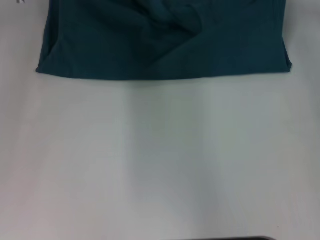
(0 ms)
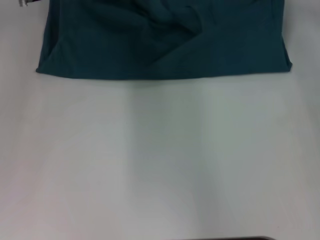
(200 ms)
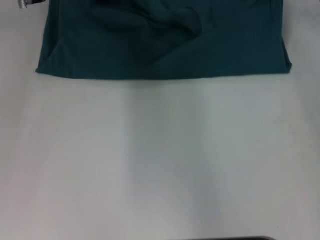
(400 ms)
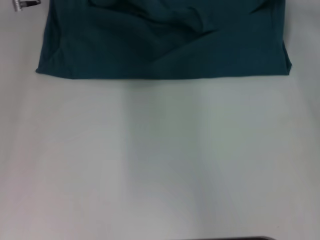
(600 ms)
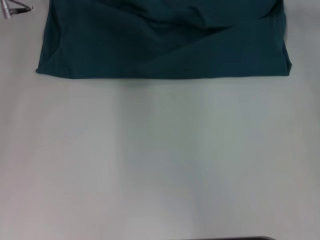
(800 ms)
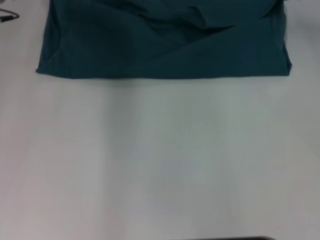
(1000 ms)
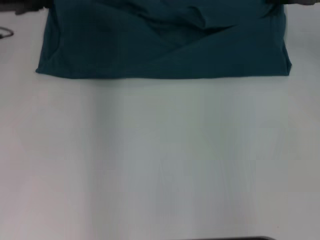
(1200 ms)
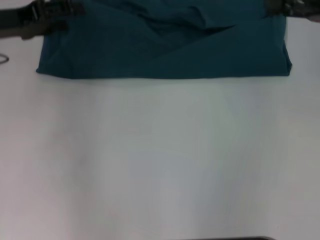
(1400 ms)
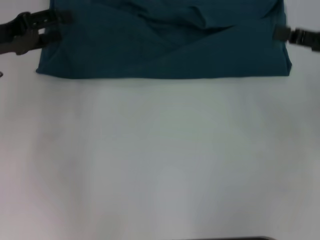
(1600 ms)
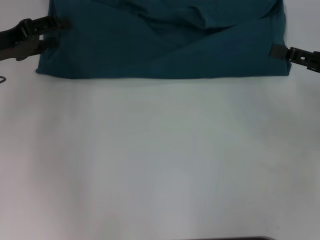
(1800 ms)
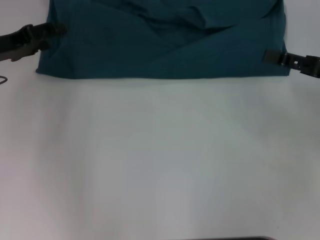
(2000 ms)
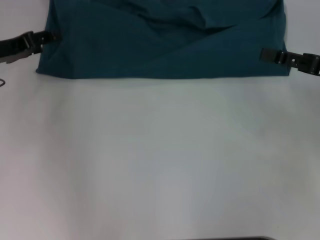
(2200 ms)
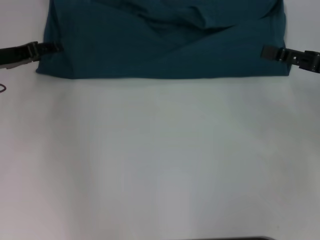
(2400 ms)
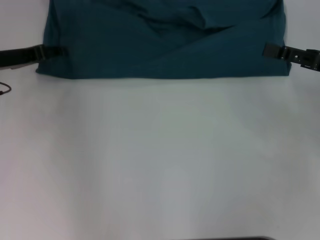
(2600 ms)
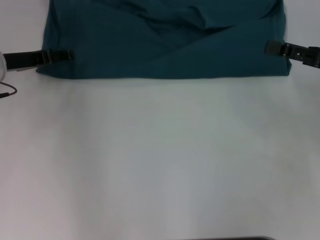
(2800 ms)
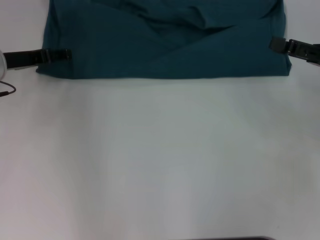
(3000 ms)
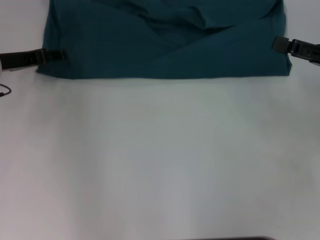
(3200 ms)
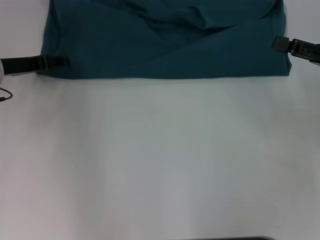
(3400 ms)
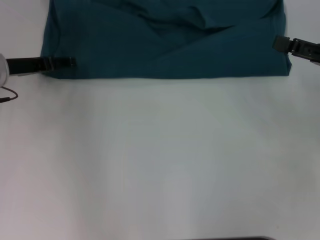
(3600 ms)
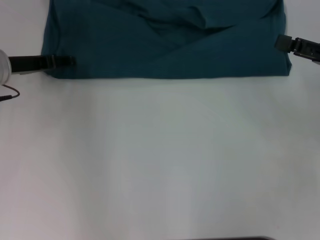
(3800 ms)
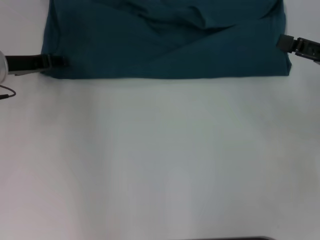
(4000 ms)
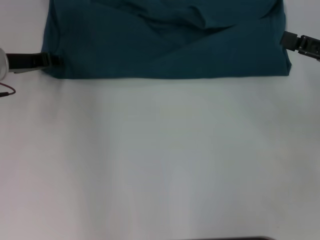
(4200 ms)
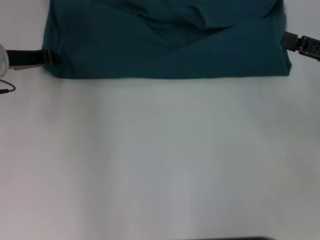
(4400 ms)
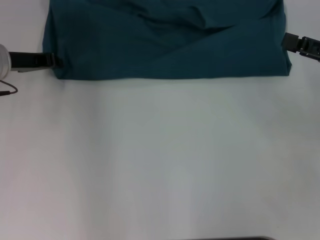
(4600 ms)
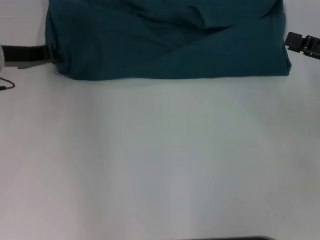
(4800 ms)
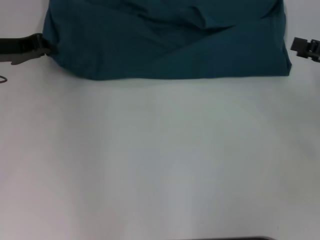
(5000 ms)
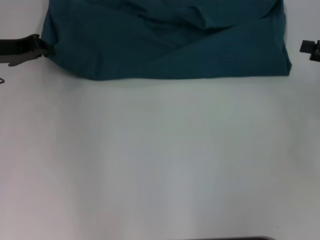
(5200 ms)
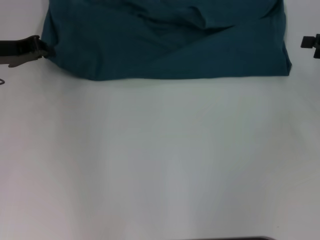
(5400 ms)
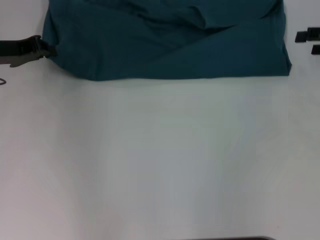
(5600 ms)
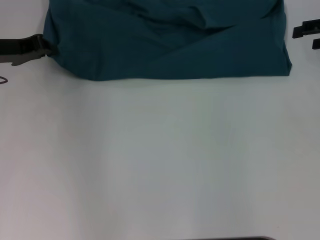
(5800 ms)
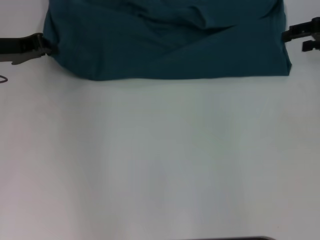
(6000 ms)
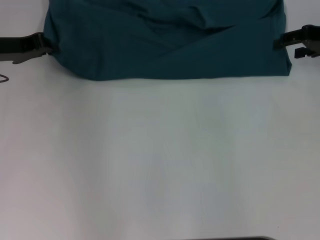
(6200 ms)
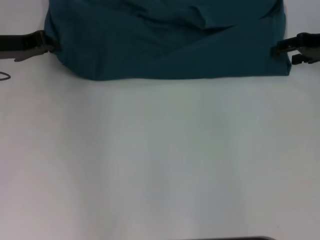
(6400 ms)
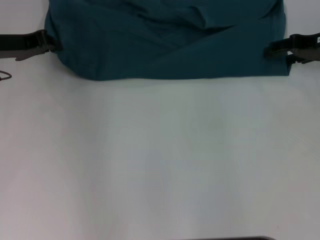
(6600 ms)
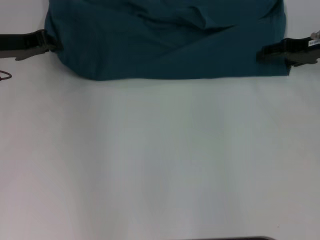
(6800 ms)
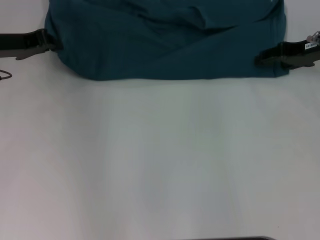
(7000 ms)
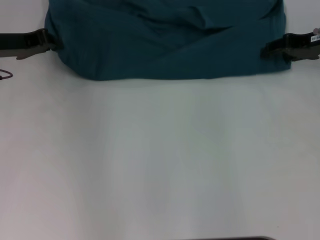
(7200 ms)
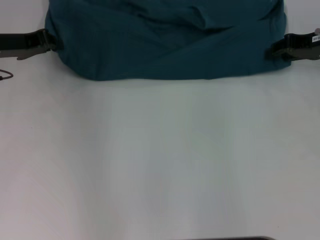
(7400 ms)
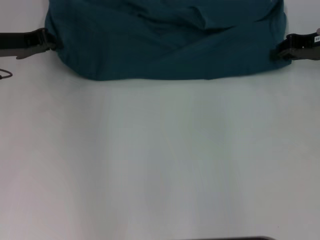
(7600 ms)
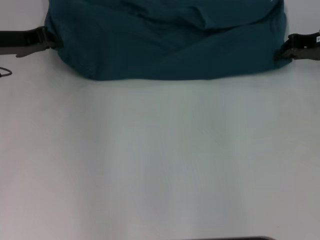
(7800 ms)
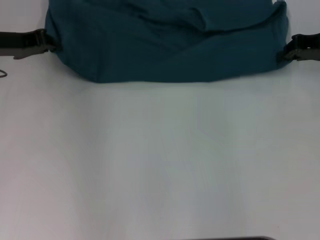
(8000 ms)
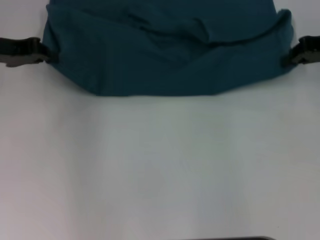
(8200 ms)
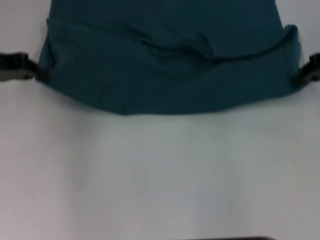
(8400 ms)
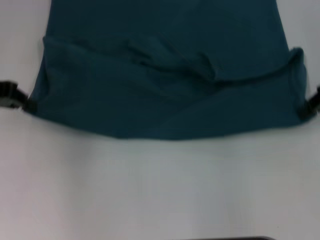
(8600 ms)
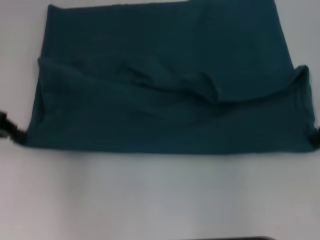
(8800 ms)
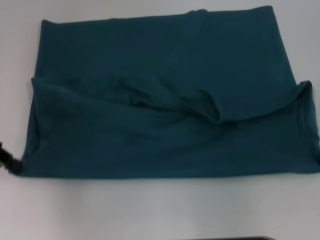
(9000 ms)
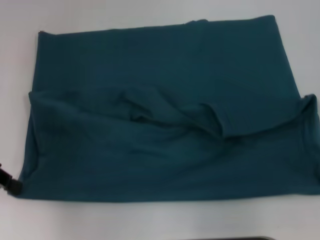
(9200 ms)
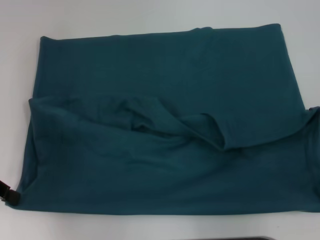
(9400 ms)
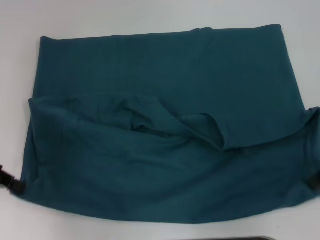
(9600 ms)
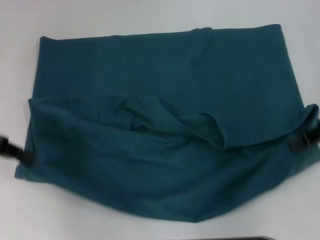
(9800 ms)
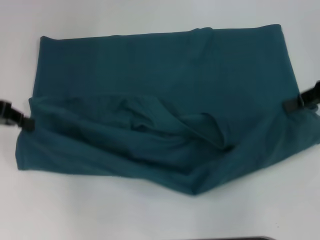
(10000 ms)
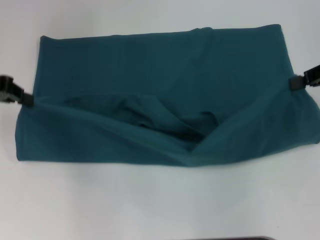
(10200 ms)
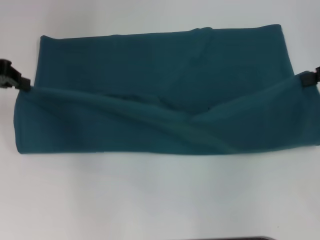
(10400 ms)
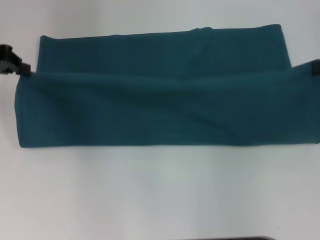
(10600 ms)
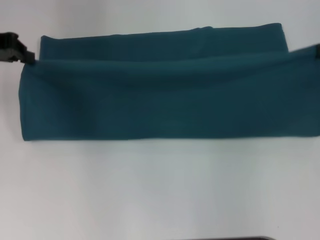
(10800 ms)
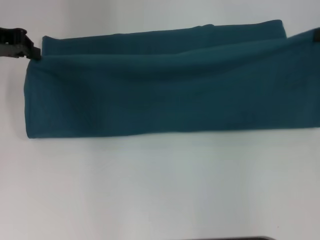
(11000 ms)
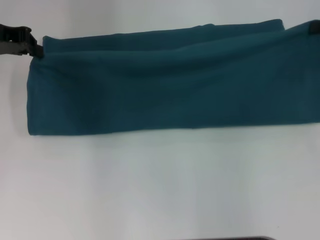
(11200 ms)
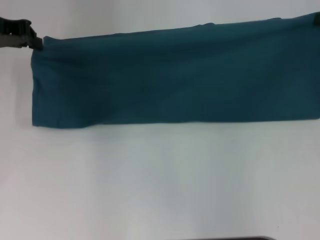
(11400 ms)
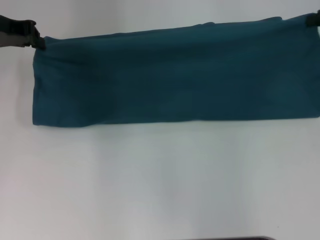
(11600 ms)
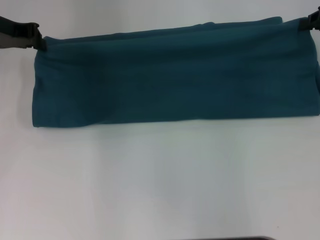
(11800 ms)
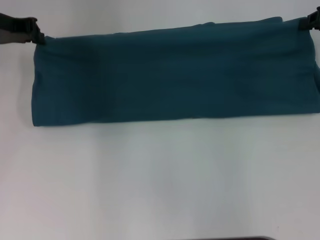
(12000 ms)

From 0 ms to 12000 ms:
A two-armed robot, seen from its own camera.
Step, from 1400 ms to 9400 ms: Pull the clothes with your left hand.
Step, from 1400 ms to 9400 ms: Pull the clothes with your right hand.
From 0 ms to 1600 ms: The right gripper shifts approximately 15 cm backward, and opens, while the left gripper goes some 15 cm backward and to the left, and opens up.
From 1600 ms to 3000 ms: The left gripper travels downward by about 5 cm.
From 4400 ms to 6000 ms: The left gripper closes up. Meanwhile the right gripper moves forward, some 10 cm.
From 6000 ms to 7600 ms: The right gripper closes up.
From 7600 ms to 9000 ms: The left gripper travels backward and to the left by roughly 10 cm. The right gripper moves backward, some 10 cm, and closes up.
From 9000 ms to 10400 ms: The left gripper goes approximately 5 cm forward.
From 10400 ms to 12000 ms: The two grippers go roughly 5 cm forward.

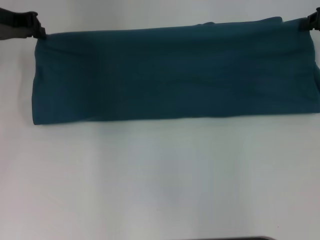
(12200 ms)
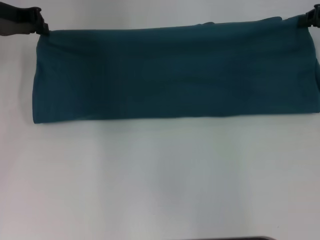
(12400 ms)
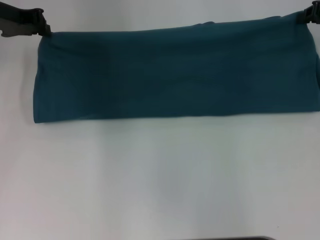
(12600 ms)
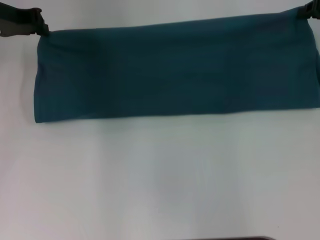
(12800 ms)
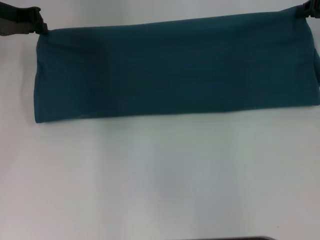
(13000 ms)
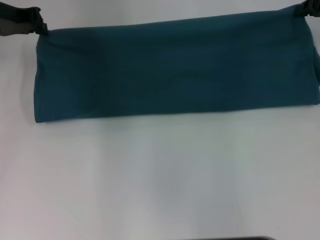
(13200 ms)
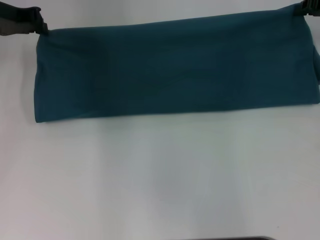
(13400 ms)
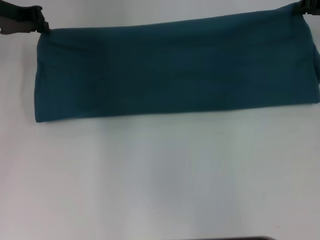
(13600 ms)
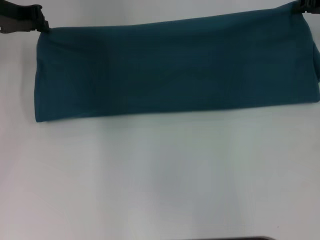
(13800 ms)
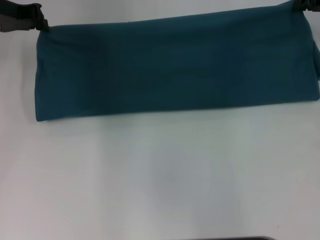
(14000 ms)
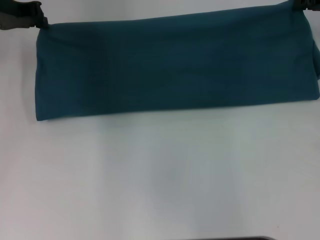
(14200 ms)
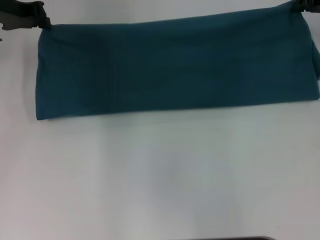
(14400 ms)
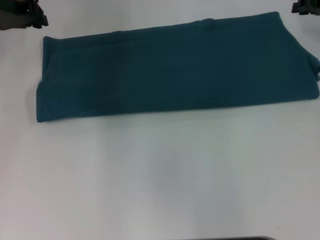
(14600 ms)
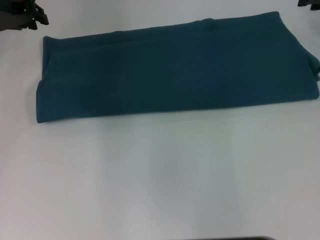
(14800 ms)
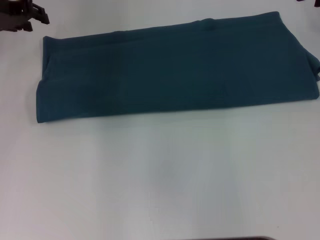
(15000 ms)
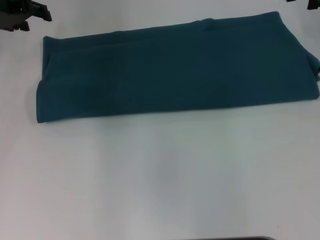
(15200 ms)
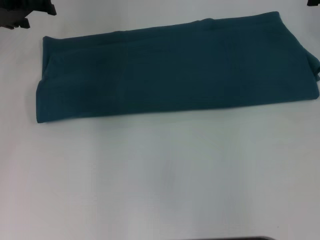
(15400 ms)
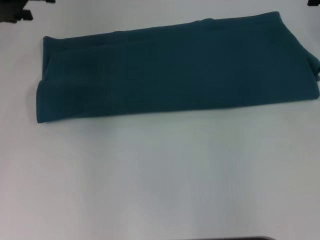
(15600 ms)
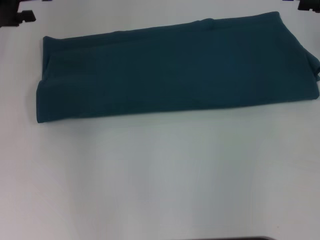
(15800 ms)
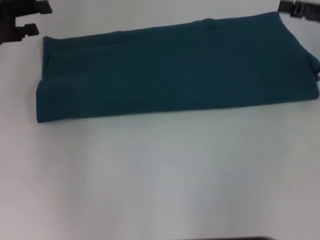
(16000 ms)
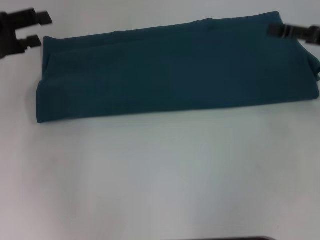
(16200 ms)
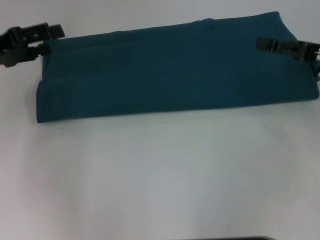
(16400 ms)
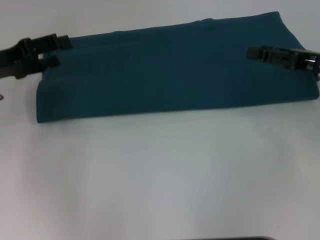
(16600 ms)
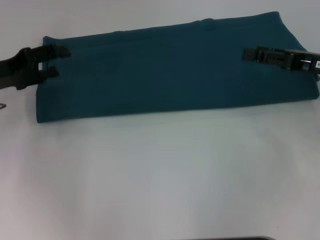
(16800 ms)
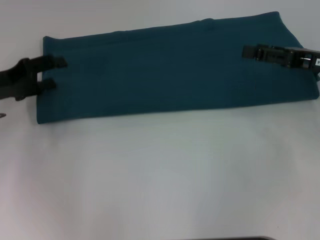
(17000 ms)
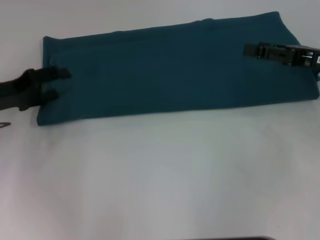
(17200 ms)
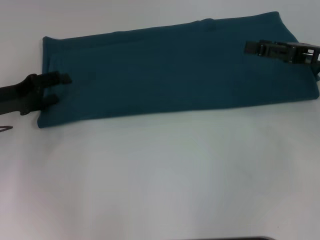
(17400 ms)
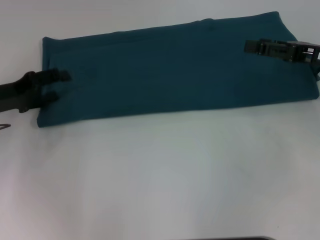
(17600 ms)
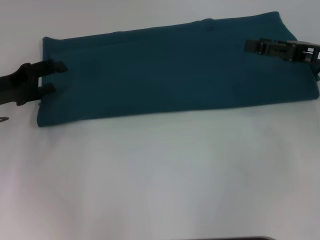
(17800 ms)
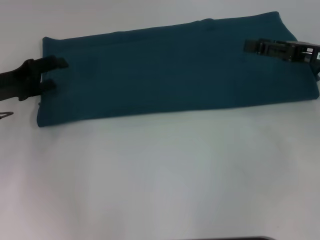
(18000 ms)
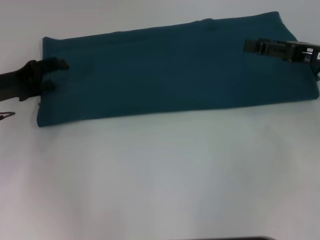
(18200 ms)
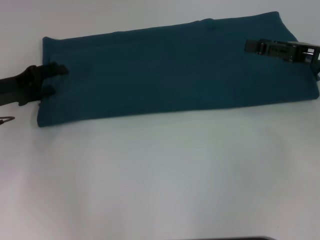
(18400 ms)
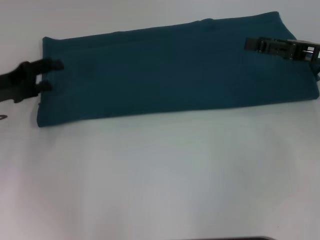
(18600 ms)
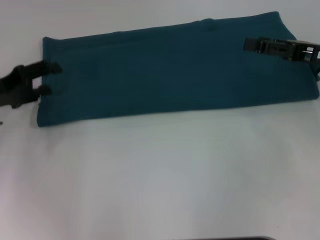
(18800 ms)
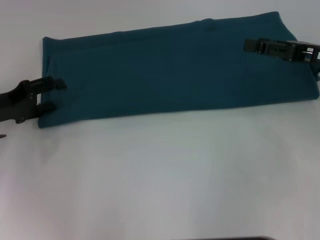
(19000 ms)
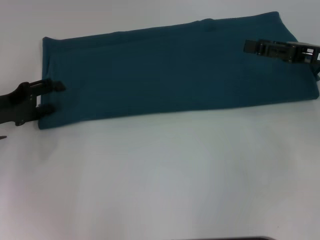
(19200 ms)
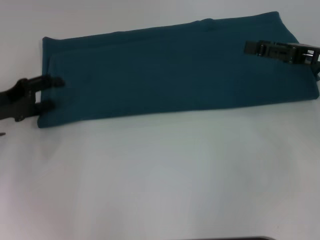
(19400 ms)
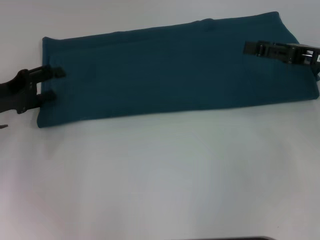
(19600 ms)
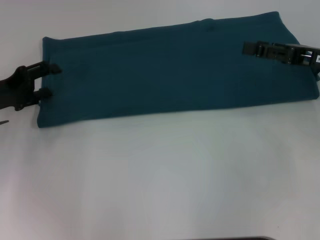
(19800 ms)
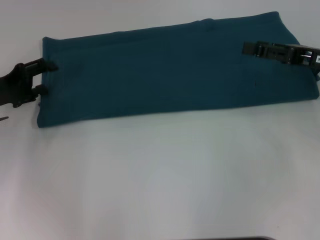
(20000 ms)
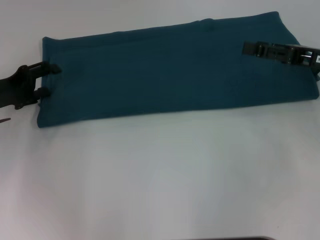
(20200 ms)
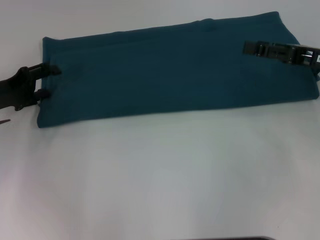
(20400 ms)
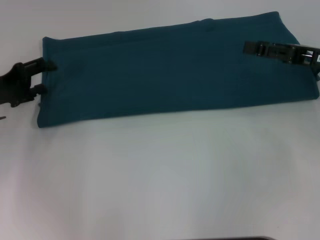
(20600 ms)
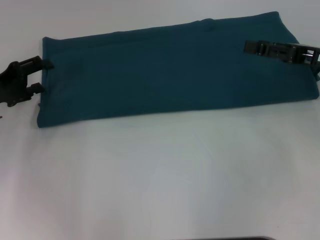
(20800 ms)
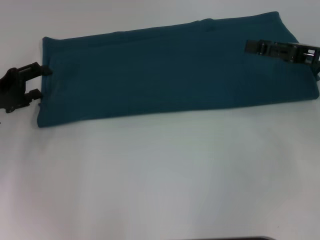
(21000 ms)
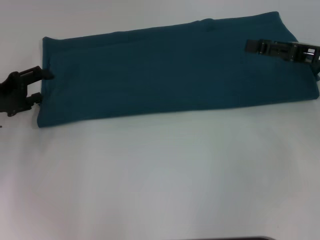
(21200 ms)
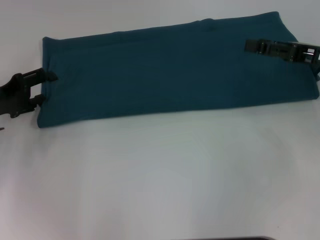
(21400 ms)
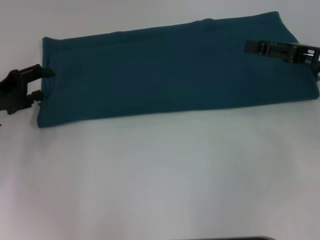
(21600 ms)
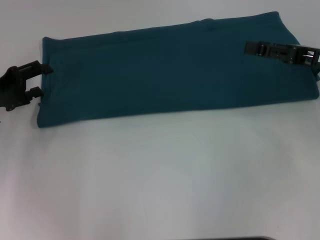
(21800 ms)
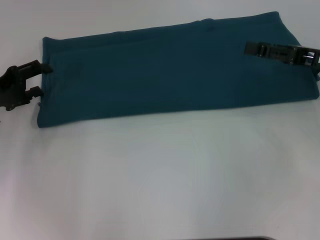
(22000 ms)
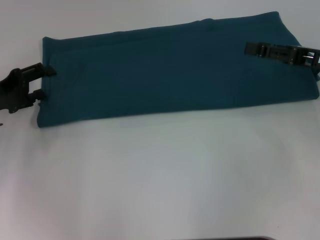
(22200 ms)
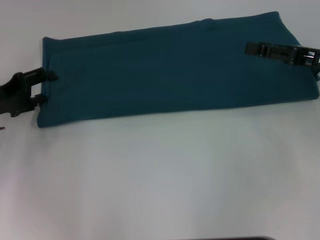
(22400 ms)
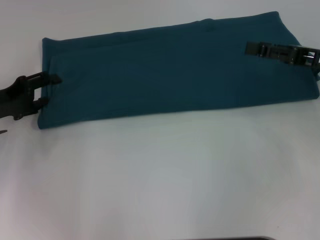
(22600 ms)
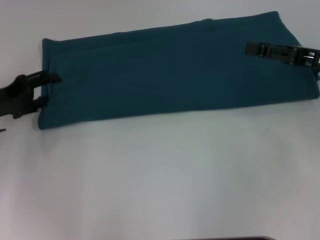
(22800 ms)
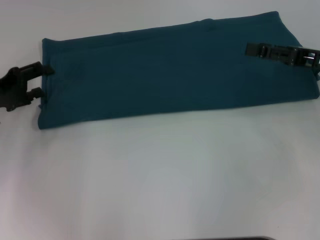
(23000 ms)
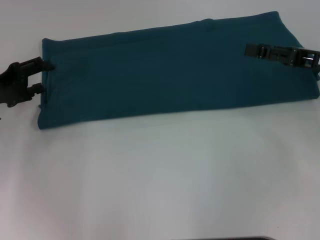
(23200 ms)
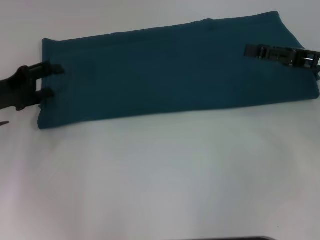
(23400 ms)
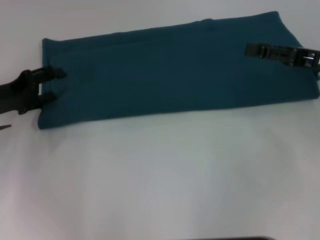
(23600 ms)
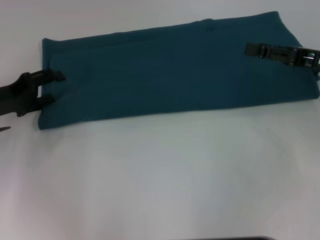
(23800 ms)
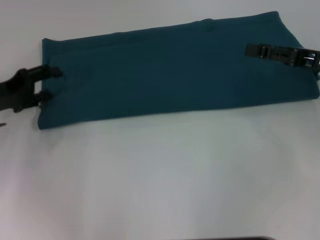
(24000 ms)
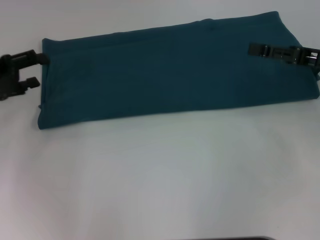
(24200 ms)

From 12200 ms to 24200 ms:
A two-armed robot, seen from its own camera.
Step, from 12200 ms to 14800 ms: Fold the clothes to the left.
Step, from 12200 ms to 14800 ms: Fold the clothes to the right.
From 12200 ms to 13800 ms: There are only small adjustments of the grippers.
From 13800 ms to 15200 ms: The left gripper opens up. The right gripper opens up.
From 15200 ms to 16600 ms: Both grippers move backward and downward, some 15 cm.
From 16600 ms to 18200 ms: The grippers move only a little.
From 18200 ms to 19800 ms: The grippers move only a little.
From 19800 ms to 22600 ms: Neither gripper changes place.
From 22600 ms to 24200 ms: There are only small adjustments of the grippers.
